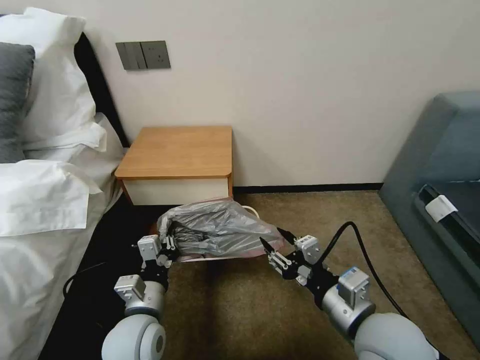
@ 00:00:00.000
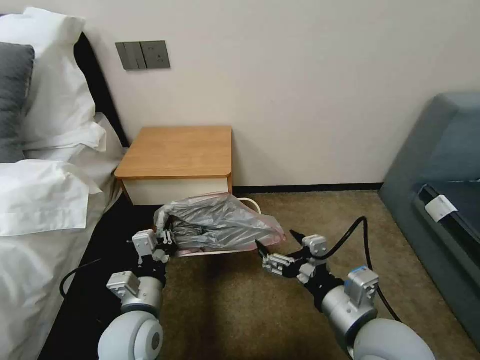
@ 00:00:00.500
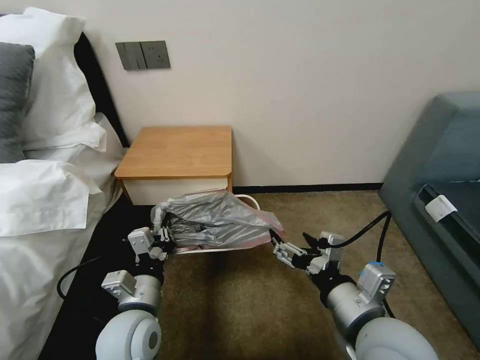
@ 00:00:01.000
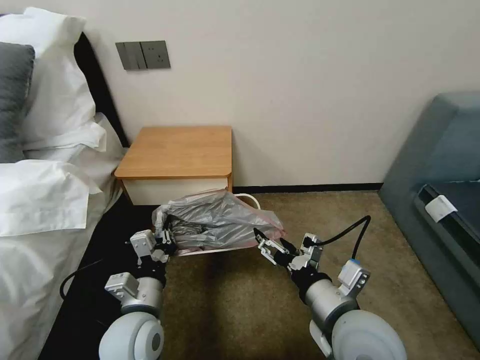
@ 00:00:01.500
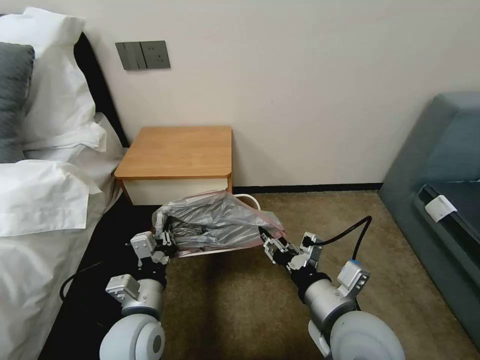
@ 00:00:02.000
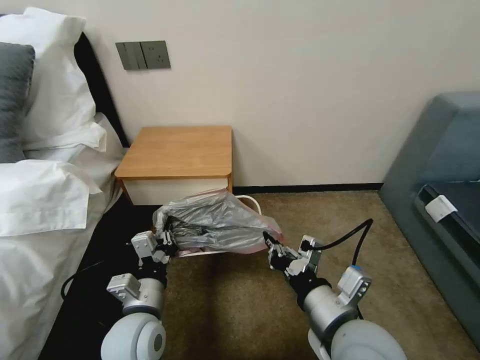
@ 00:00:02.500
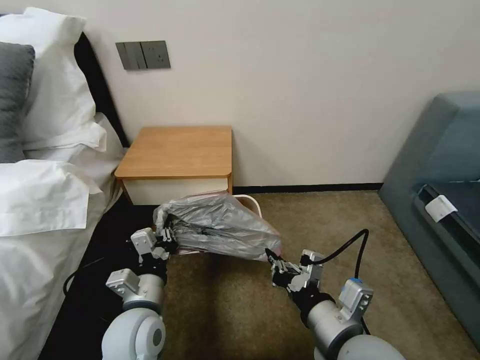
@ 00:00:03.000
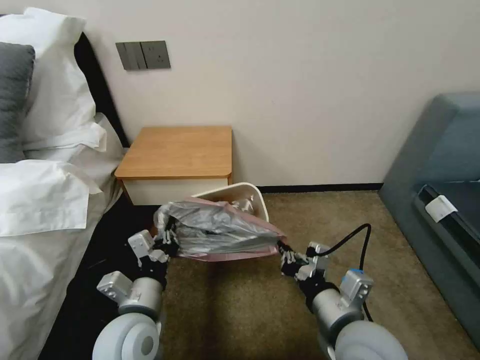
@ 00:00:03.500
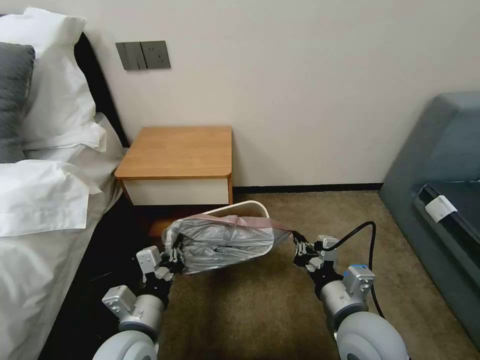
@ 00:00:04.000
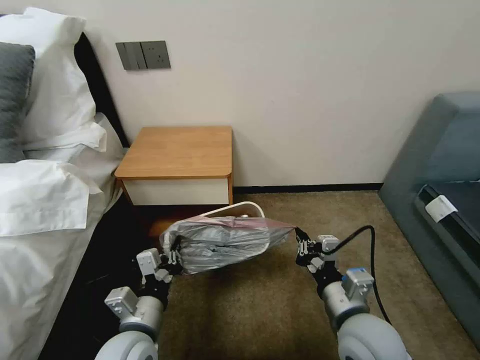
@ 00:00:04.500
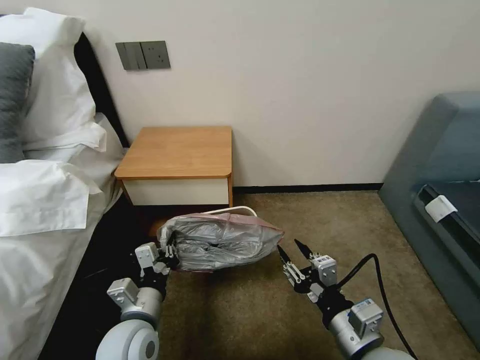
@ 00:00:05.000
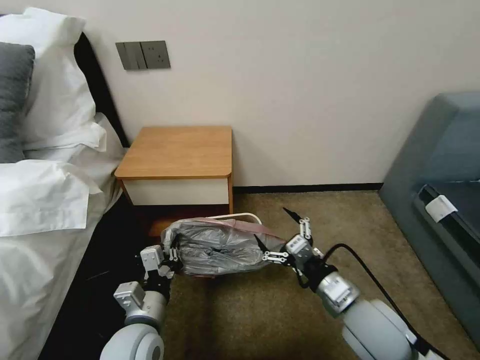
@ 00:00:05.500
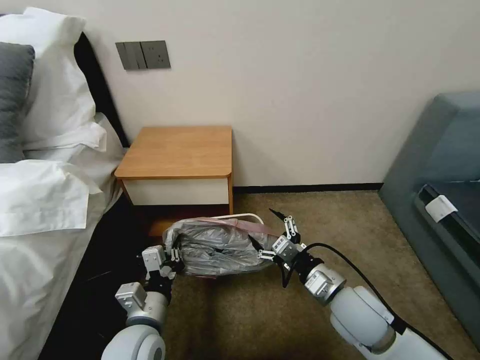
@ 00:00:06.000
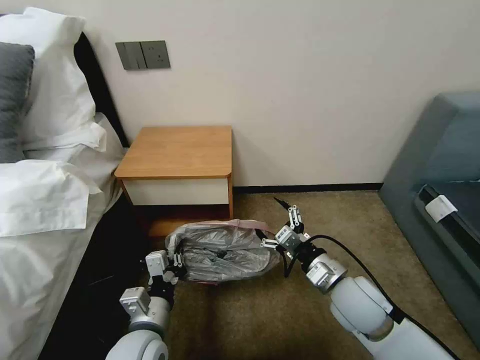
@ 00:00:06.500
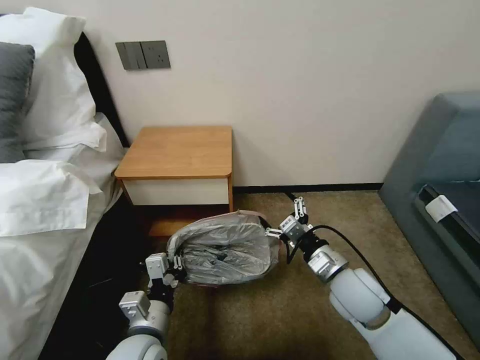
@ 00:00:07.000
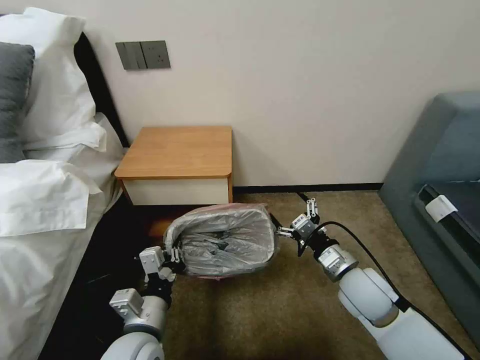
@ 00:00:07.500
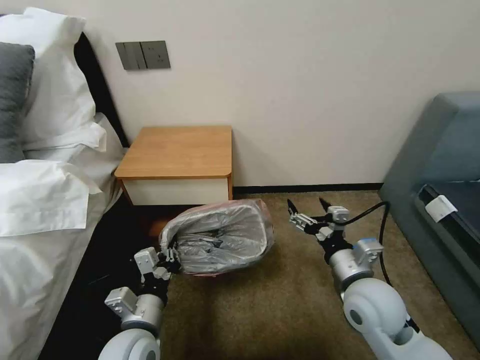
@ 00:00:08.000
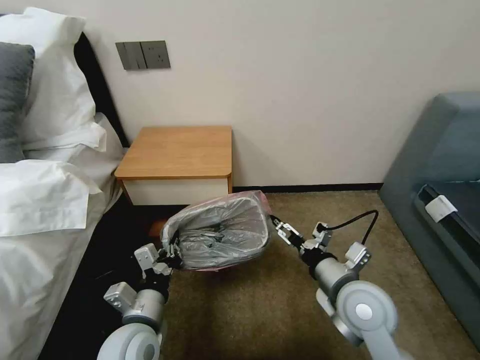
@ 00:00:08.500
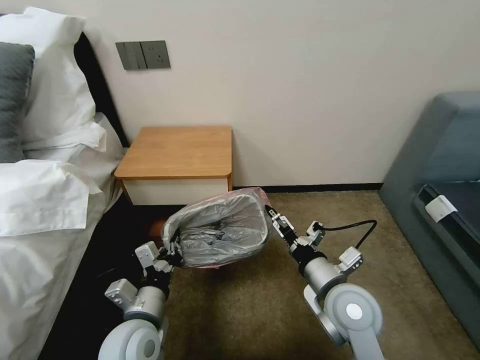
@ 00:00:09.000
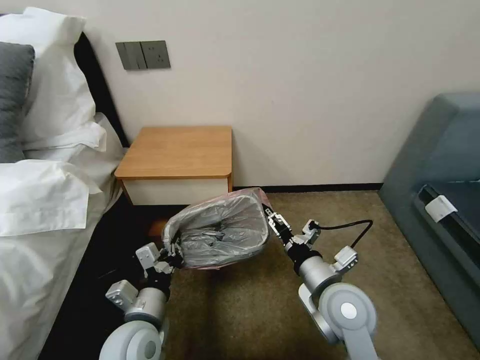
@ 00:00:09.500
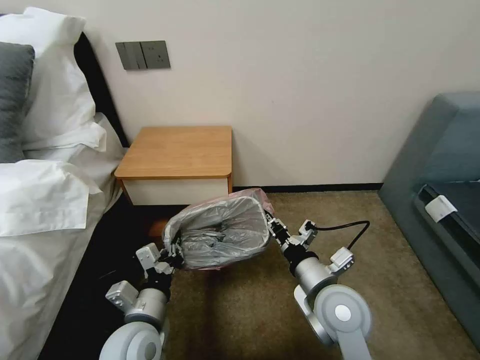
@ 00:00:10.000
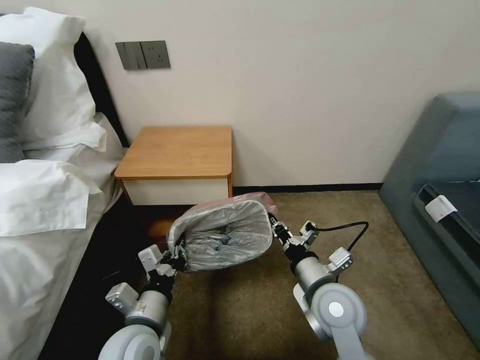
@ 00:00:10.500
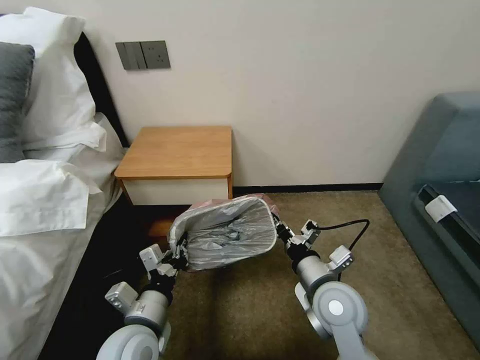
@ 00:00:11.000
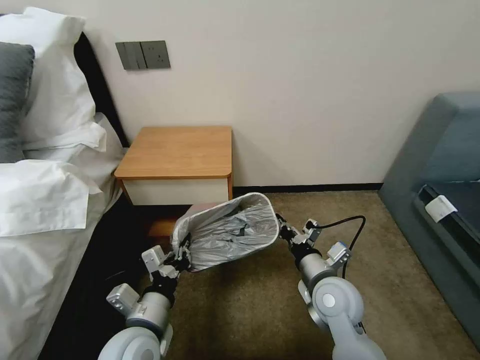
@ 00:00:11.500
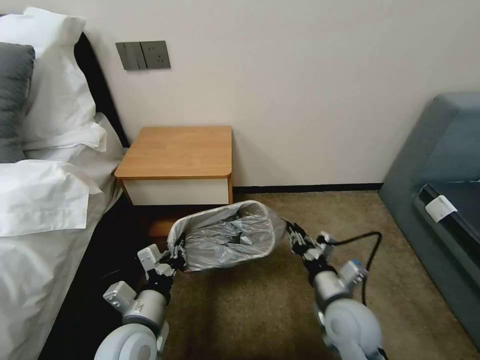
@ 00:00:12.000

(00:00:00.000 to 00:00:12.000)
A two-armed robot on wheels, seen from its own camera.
Task of the whole recording: Pick up the garbage bag from the table and place it over the trash can.
00:00:00.000 - 00:00:02.000: The right gripper opens, then closes again.
00:00:02.000 - 00:00:04.000: The right gripper closes its fingers.
00:00:04.000 - 00:00:06.000: The right gripper moves forward, roughly 5 cm, and opens up.
00:00:08.000 - 00:00:10.000: The right gripper moves to the left, roughly 5 cm, and closes its fingers.
00:00:10.000 - 00:00:12.000: The right gripper moves downward, roughly 5 cm.

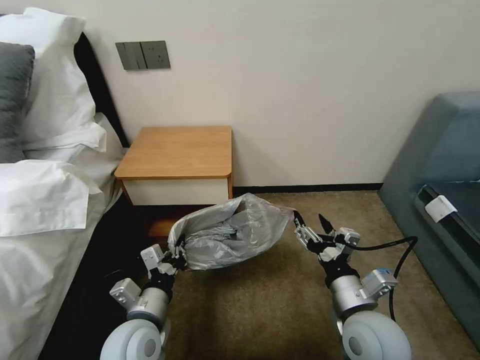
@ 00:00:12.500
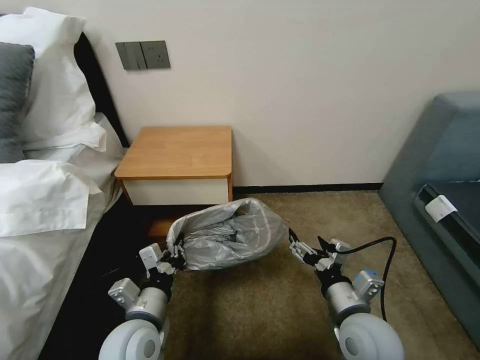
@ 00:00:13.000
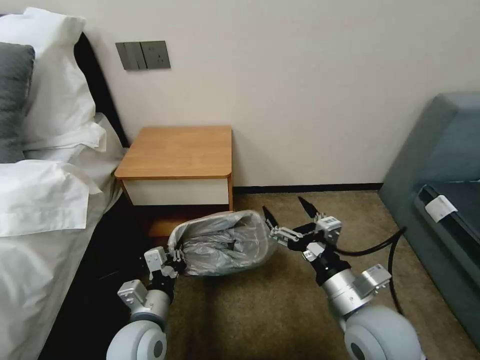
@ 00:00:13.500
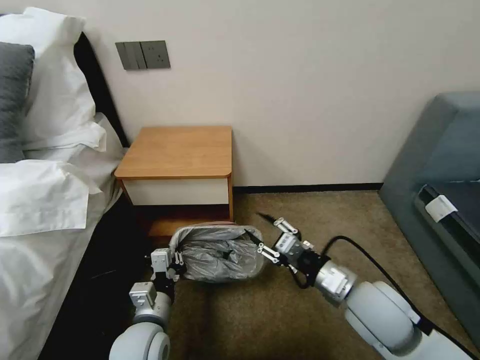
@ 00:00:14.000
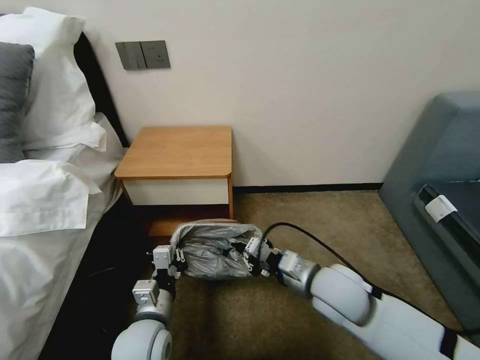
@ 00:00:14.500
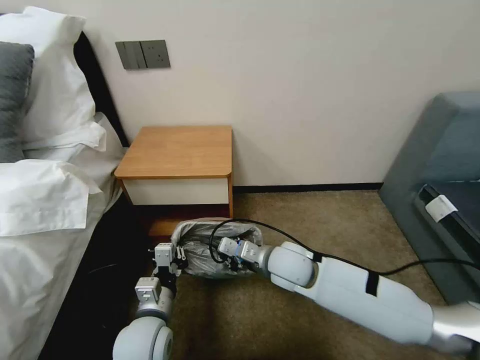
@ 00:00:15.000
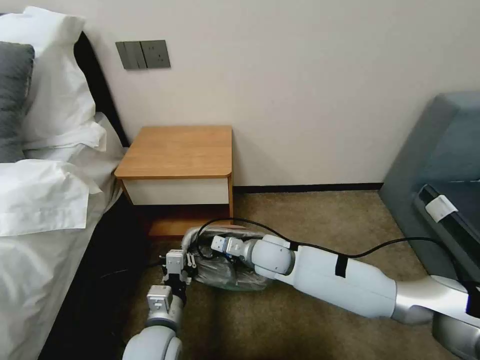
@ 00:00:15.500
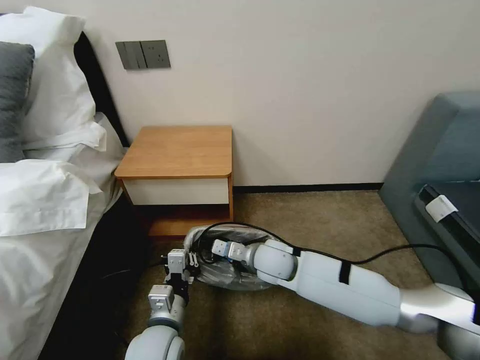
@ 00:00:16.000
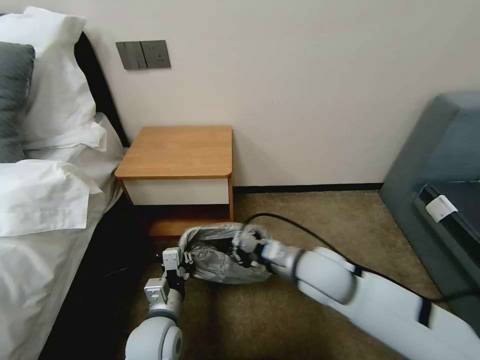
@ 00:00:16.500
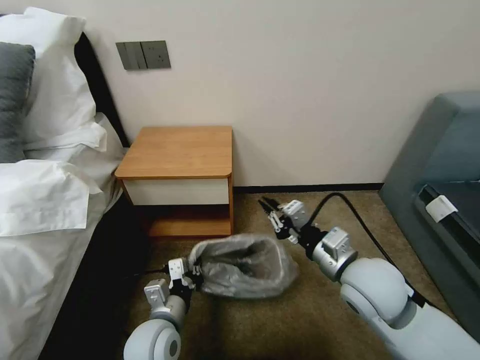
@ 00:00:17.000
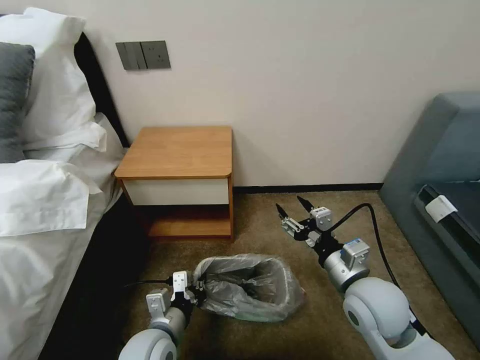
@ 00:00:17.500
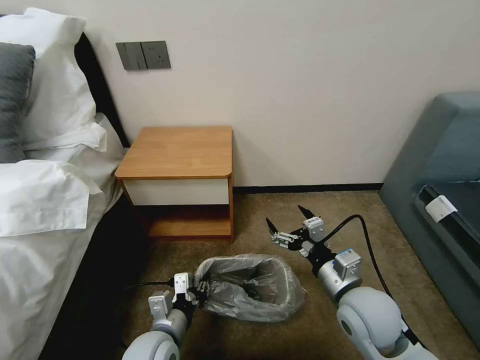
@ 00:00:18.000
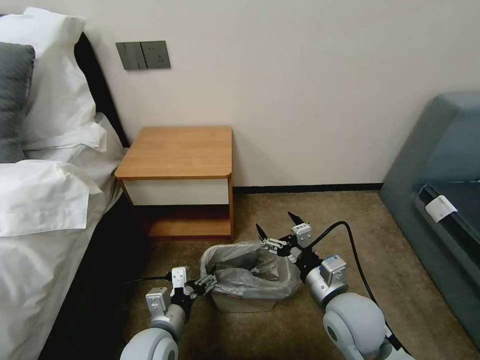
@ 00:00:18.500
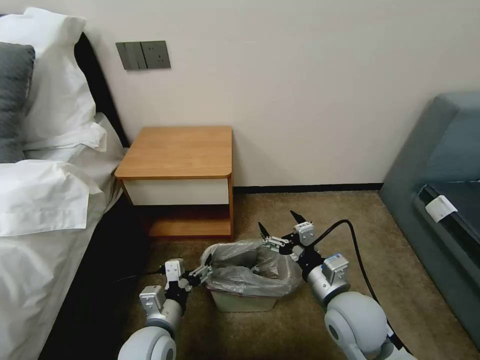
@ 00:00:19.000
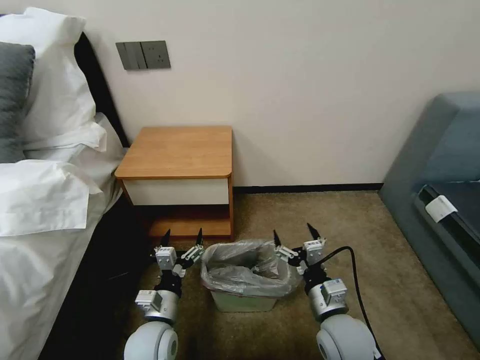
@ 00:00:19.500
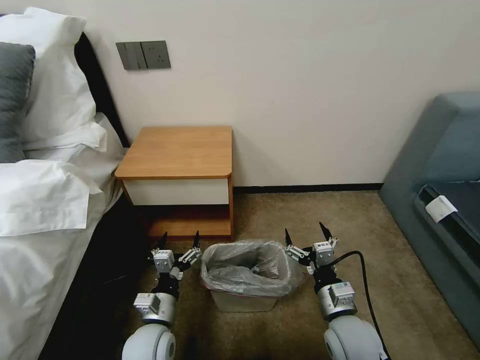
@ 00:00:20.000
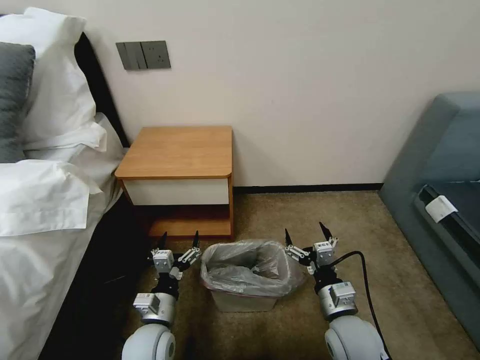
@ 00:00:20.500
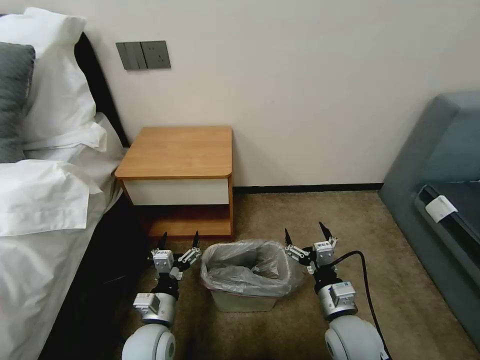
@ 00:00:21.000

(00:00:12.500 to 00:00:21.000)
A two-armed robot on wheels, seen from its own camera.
Task of the whole recording: Pick up the garbage bag from the table and place it over the trash can.
00:00:12.500 - 00:00:14.500: The right gripper goes about 5 cm forward, and closes.
00:00:14.500 - 00:00:16.500: The right gripper moves roughly 10 cm forward and comes back.
00:00:16.500 - 00:00:19.000: The right gripper is displaced backward and to the right by about 10 cm, and opens up, while the left gripper opens.
00:00:19.000 - 00:00:21.000: The right gripper moves downward, some 5 cm. The left gripper moves some 5 cm.
